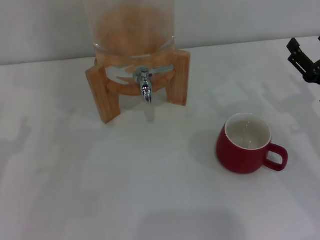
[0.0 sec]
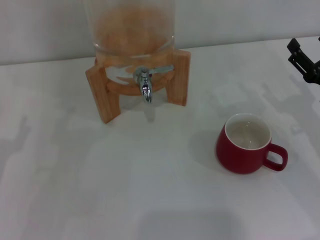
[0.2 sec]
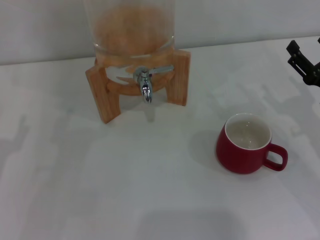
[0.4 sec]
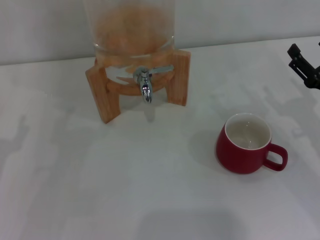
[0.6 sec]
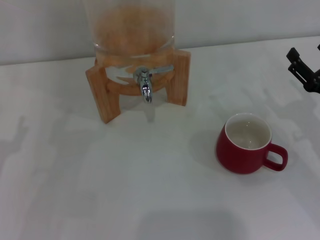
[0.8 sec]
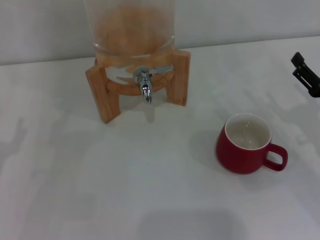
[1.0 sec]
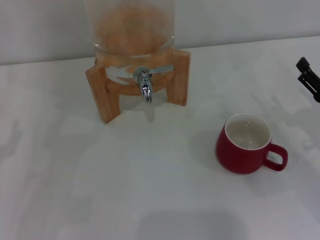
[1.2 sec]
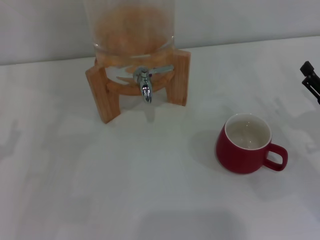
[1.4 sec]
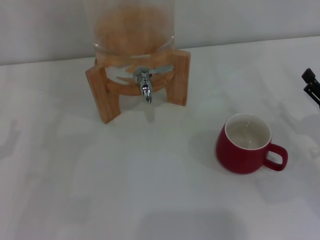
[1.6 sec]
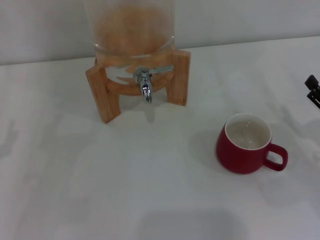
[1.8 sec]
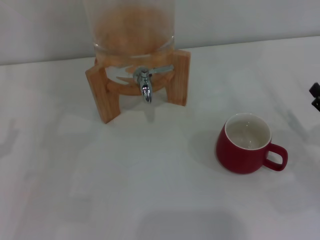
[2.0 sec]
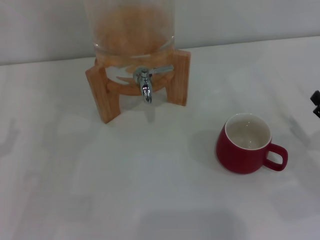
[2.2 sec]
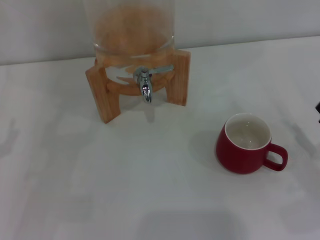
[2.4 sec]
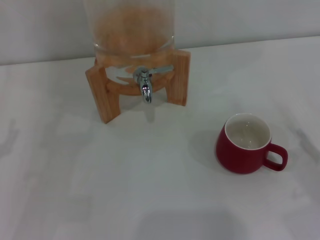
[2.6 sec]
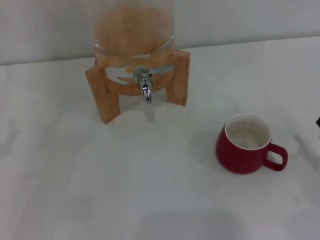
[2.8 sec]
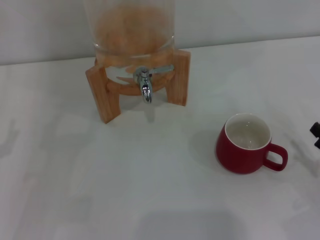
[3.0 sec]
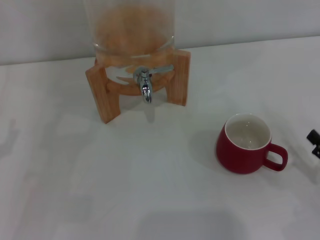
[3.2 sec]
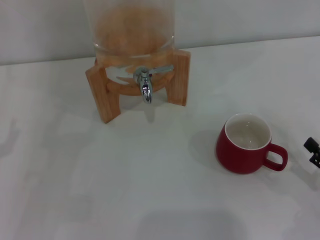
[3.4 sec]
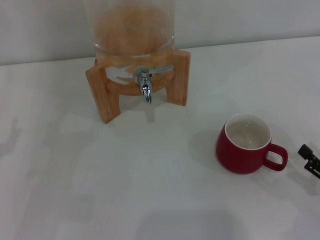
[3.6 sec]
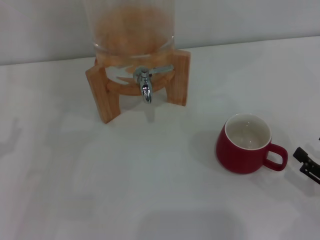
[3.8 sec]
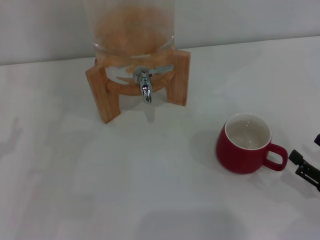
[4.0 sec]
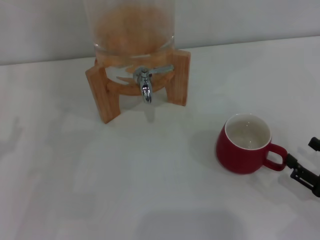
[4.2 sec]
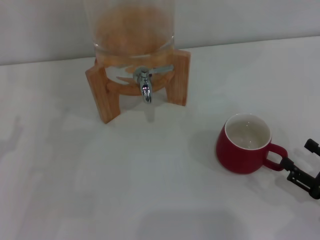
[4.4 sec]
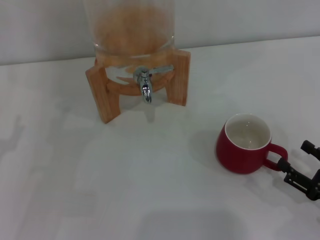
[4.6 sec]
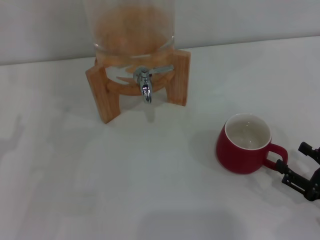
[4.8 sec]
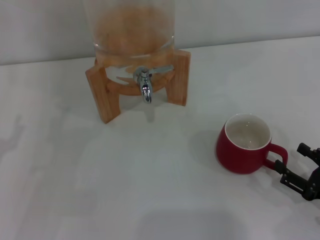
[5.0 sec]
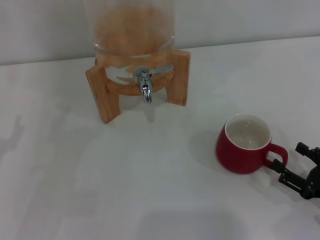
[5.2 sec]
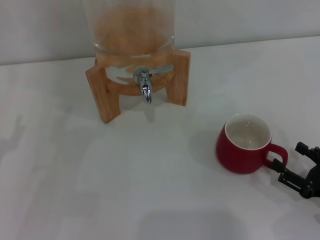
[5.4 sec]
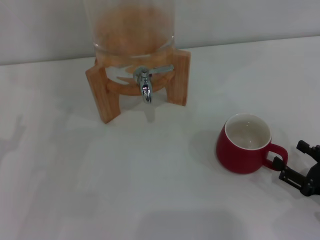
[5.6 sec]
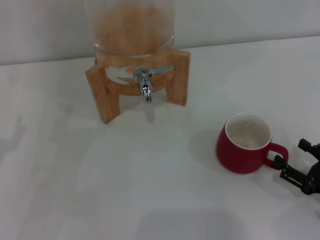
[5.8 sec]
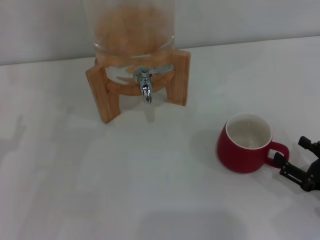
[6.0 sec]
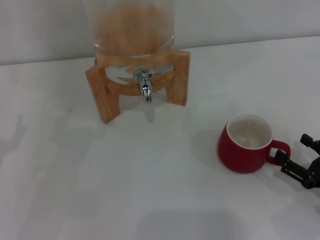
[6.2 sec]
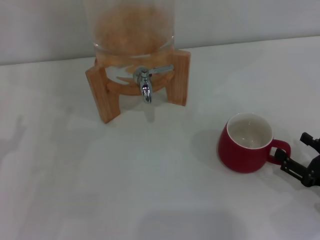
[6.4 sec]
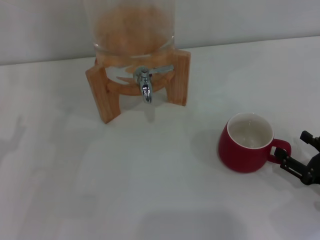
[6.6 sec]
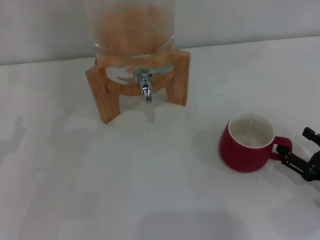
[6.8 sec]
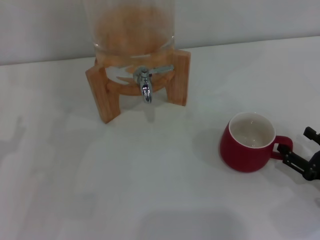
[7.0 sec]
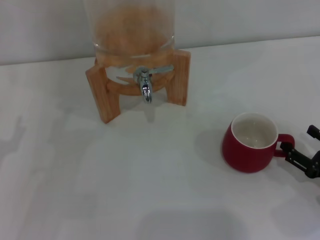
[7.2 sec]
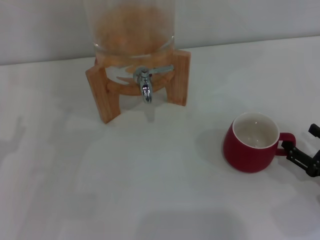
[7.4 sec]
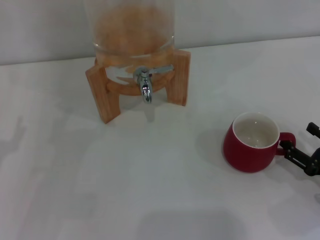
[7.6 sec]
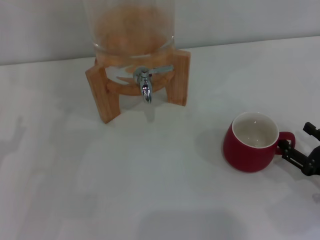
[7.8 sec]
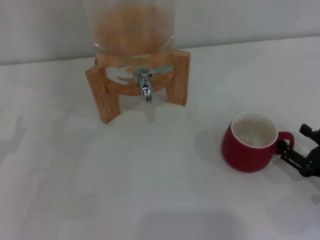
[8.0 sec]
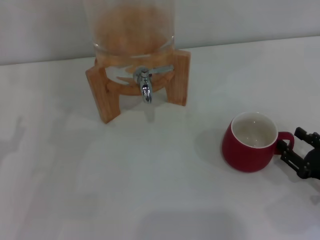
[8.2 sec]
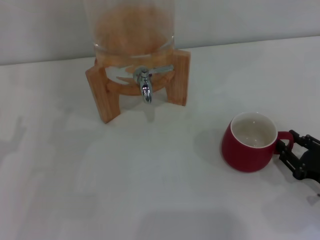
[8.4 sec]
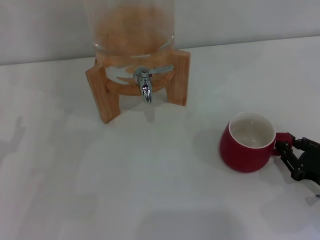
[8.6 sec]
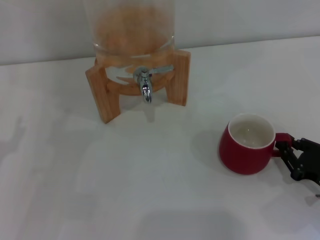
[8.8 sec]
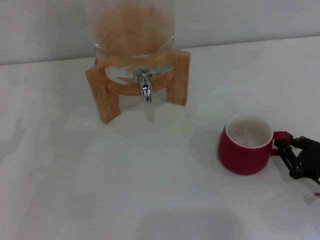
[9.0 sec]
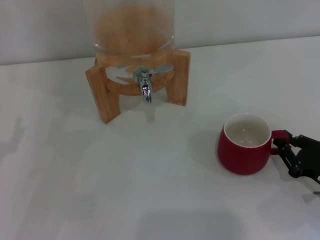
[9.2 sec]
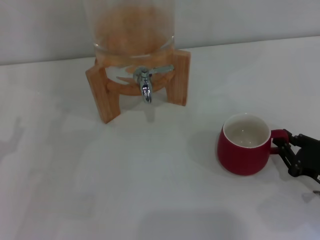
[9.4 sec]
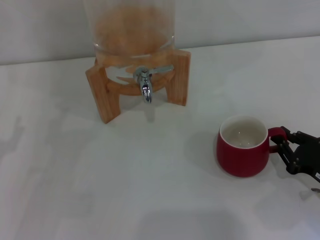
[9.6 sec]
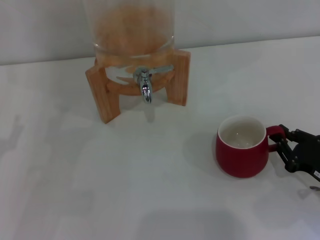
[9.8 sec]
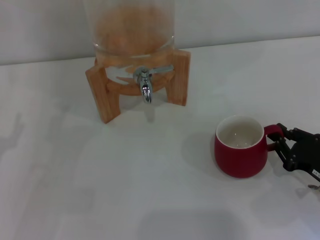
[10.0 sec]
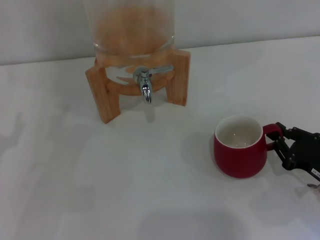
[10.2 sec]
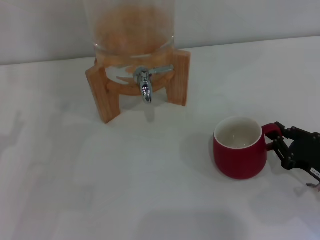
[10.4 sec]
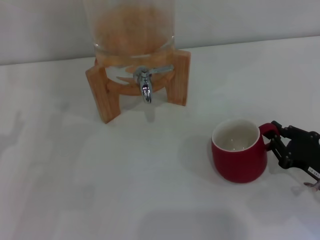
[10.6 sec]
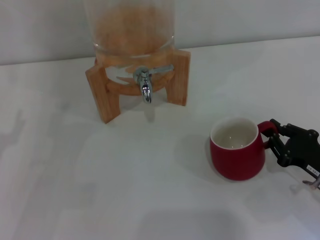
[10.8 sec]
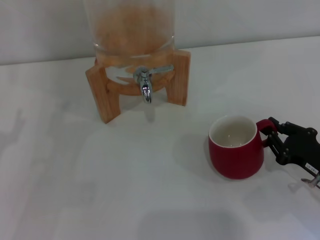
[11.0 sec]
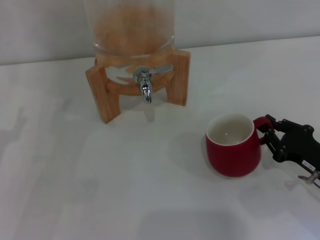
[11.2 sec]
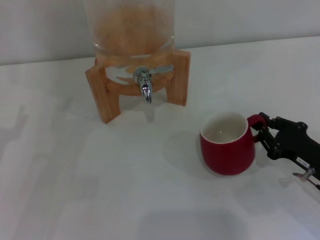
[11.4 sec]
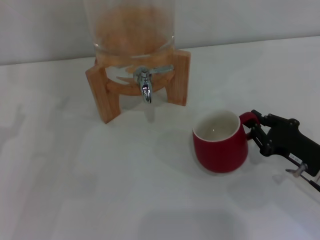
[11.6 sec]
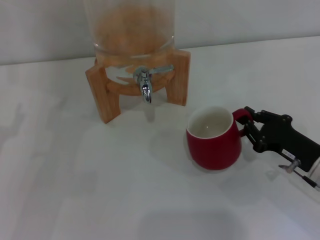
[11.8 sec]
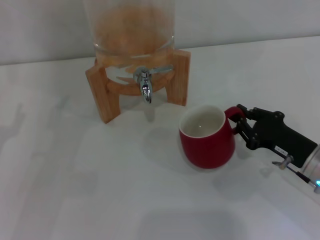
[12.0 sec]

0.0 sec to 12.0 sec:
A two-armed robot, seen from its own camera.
Task of the whole recording: the right gripper pick up the red cup and place it horizontally under the faucet, the left gripper turn on the faucet to fill the cup, and then turn off the faucet.
0.0 sec to 1.6 sec: The right gripper changes place by some 5 cm.
1.6 sec to 3.0 sec: The right gripper is displaced backward by some 10 cm.
3.0 sec to 7.6 sec: The grippers make only small movements.
7.6 sec to 9.0 sec: The right gripper closes.
9.0 sec to 10.4 sec: The grippers make only small movements.
10.4 sec to 12.0 sec: The right gripper shifts by about 5 cm.

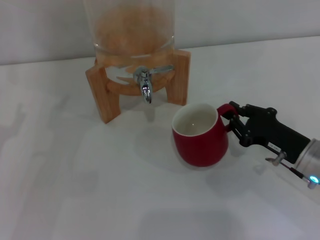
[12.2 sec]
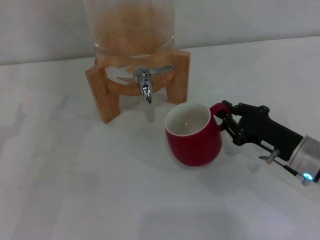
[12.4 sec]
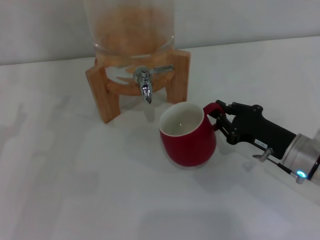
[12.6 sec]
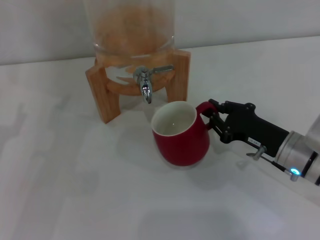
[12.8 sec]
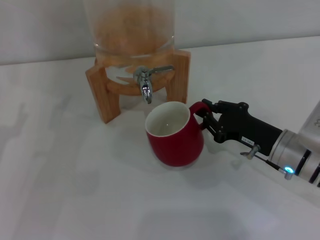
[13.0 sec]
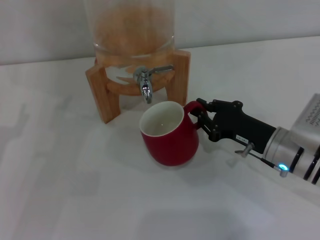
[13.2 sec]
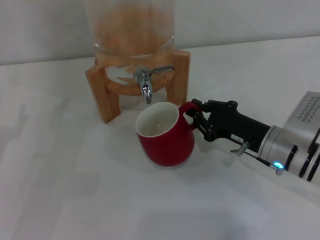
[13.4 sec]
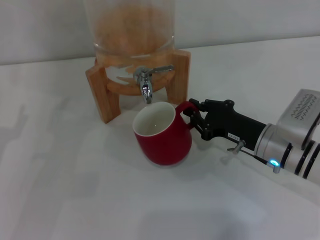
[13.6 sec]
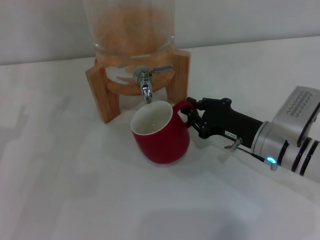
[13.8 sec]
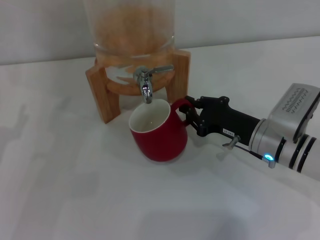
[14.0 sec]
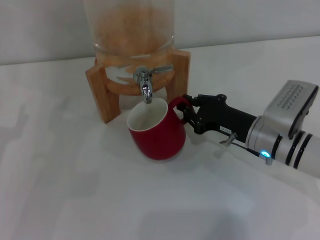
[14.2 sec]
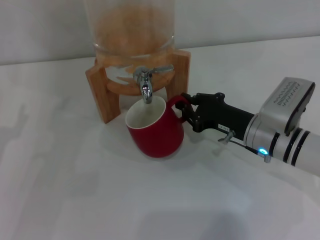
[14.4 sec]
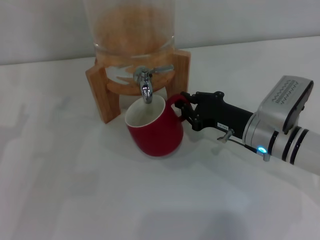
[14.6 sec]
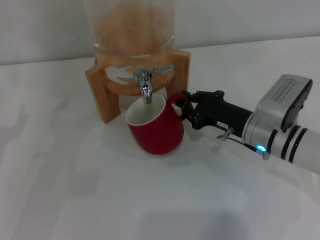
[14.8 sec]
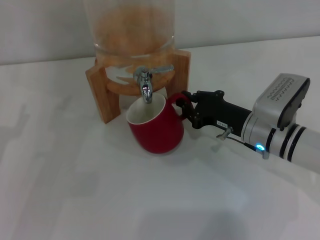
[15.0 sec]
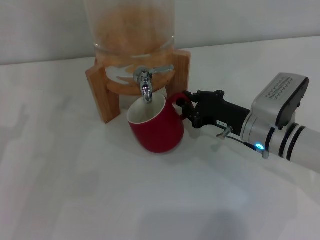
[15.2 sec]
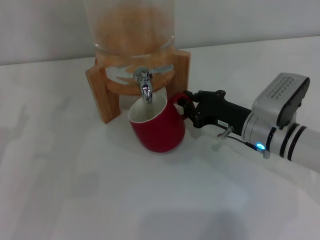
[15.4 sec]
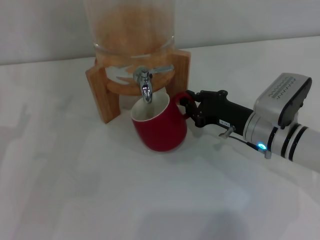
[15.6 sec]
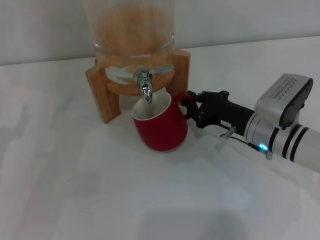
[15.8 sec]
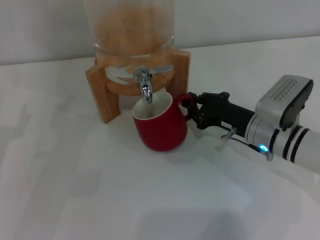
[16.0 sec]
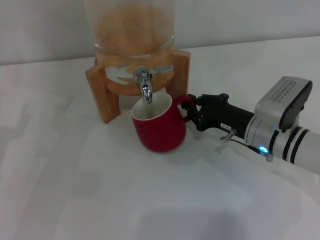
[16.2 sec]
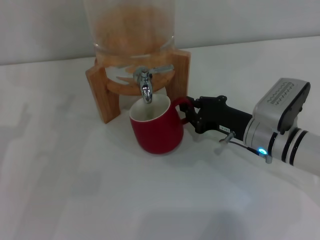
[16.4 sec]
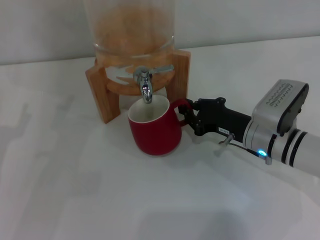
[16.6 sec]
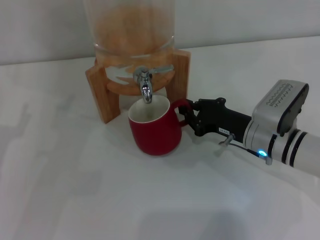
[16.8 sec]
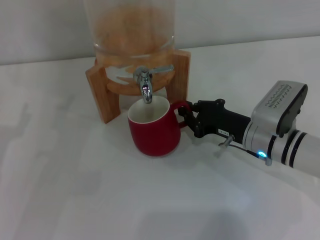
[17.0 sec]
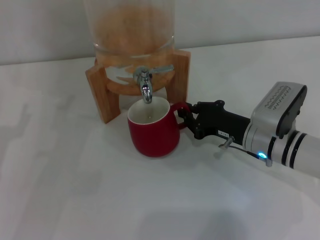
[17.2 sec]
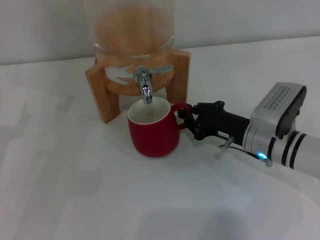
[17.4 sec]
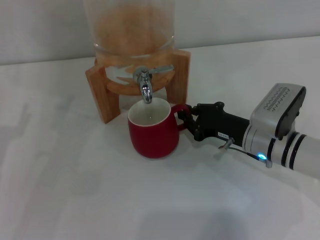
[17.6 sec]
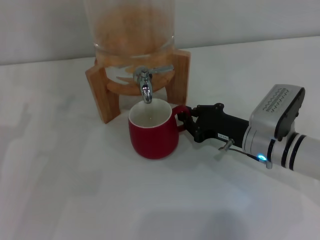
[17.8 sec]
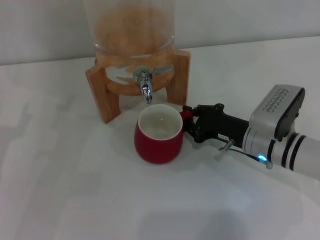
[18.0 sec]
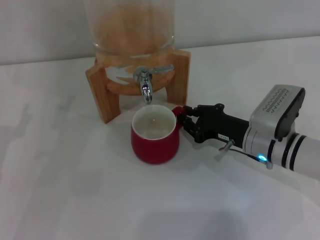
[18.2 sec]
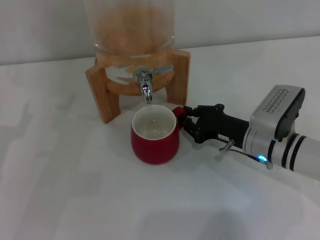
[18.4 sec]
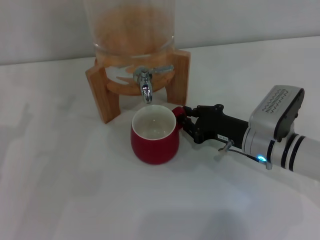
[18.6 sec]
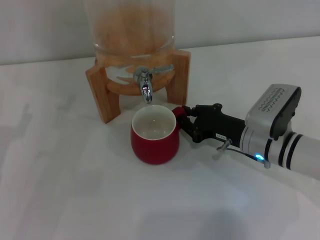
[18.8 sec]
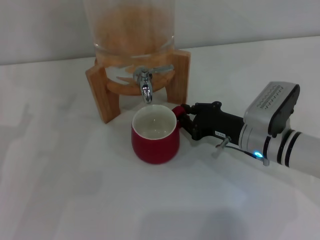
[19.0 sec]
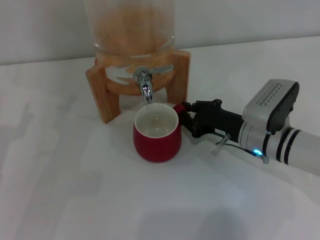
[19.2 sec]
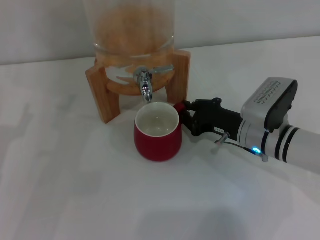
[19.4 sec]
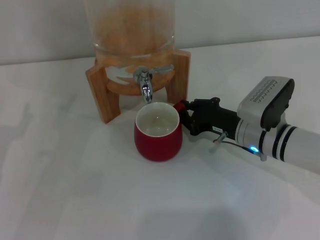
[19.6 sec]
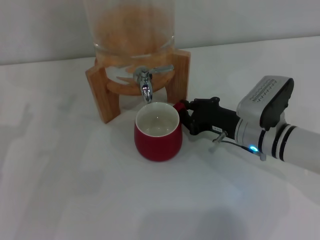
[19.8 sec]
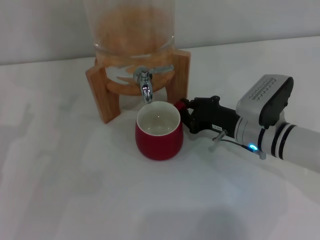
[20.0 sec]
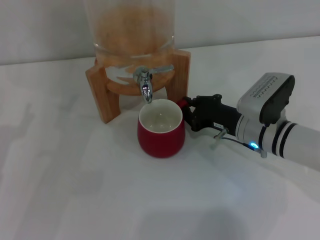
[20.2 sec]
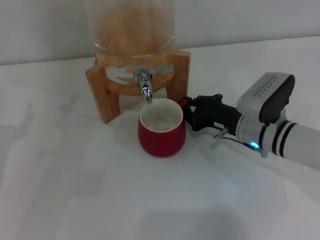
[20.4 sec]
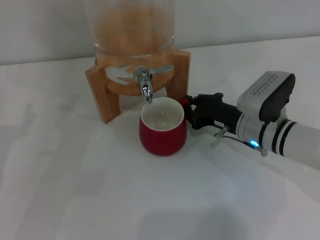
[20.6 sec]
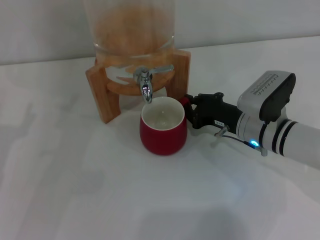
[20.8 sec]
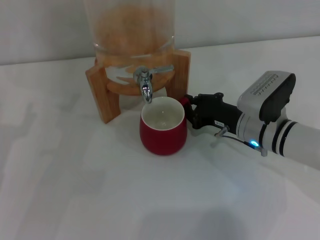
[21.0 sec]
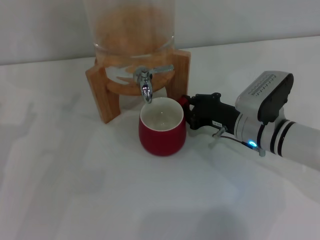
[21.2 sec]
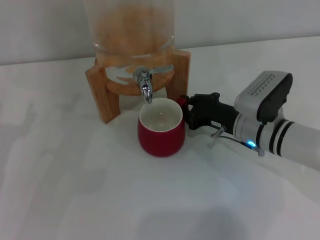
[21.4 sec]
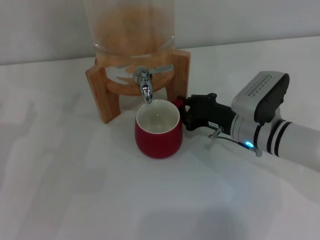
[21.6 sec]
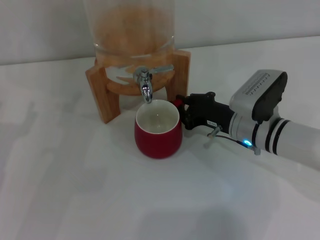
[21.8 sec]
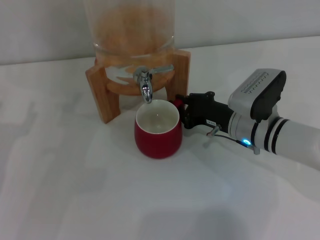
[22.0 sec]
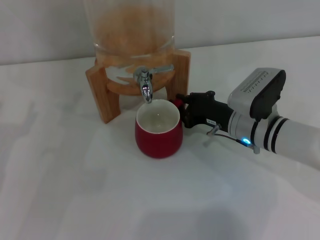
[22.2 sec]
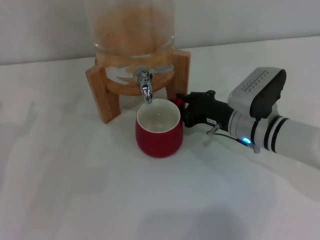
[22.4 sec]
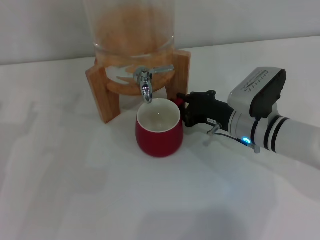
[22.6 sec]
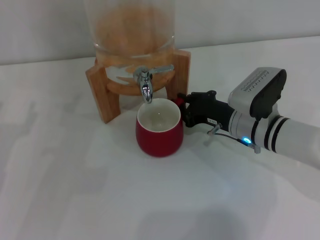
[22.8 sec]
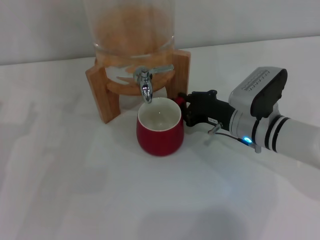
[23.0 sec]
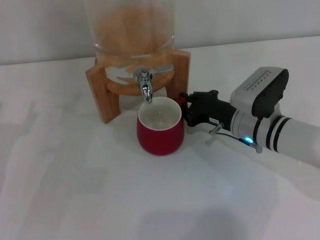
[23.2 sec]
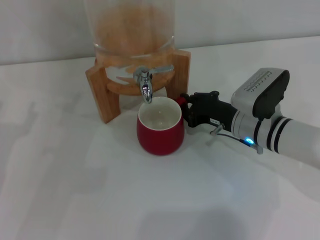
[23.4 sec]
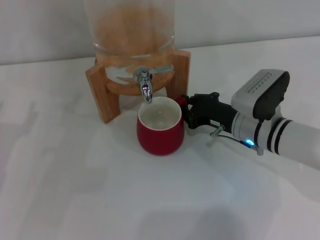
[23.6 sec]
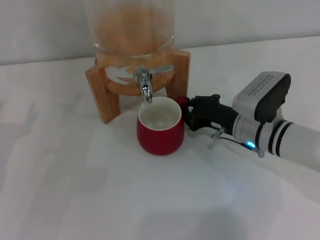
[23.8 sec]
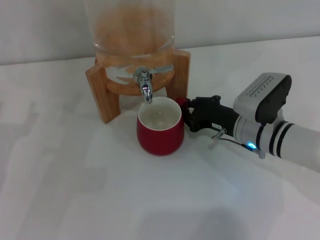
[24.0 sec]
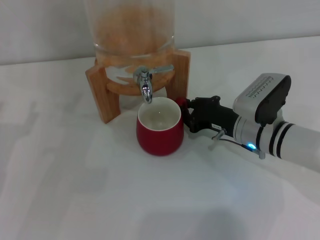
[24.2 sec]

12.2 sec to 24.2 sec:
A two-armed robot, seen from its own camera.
Task of the whole recording: the right gripper pick up the red cup and place it horizontally under the faucet, the left gripper turn on the faucet to fill the cup, and then turn off the faucet.
12.2 sec to 13.8 sec: The right gripper moves to the left, approximately 5 cm.
13.8 sec to 15.2 sec: The grippers make only small movements.
15.2 sec to 16.6 sec: Neither gripper changes place.
16.6 sec to 18.2 sec: Both grippers stay put.
18.2 sec to 19.8 sec: The grippers move only a little.
19.8 sec to 21.2 sec: The two grippers keep their place.
21.2 sec to 24.2 sec: The two grippers keep their place.
